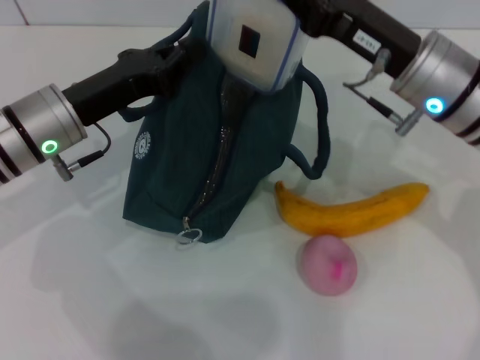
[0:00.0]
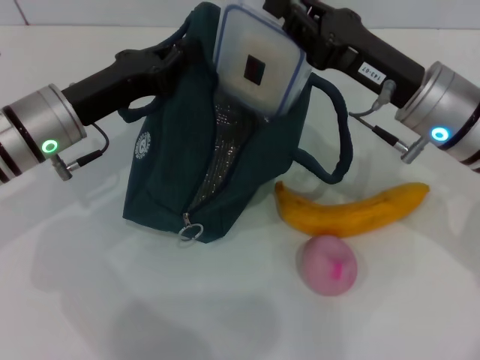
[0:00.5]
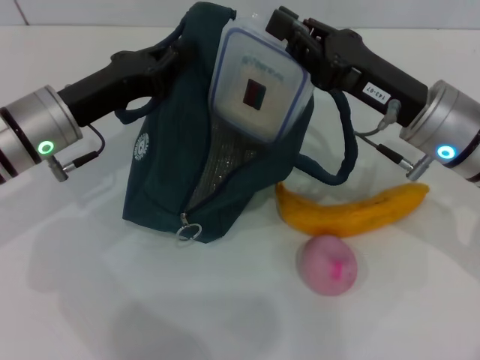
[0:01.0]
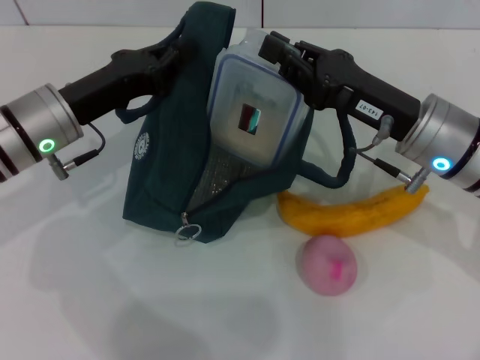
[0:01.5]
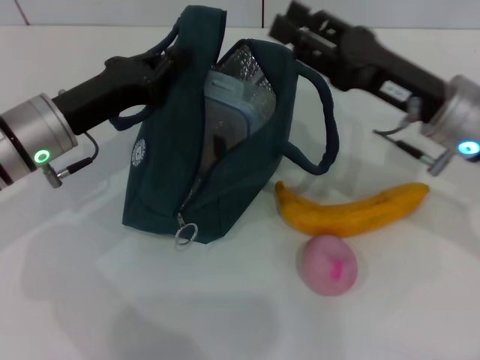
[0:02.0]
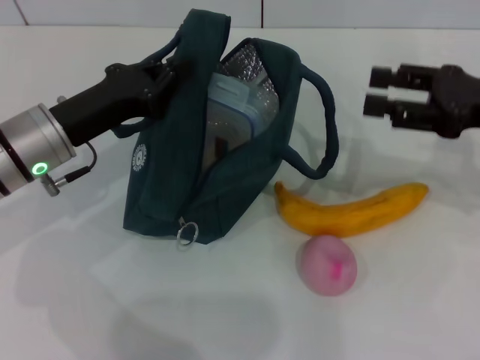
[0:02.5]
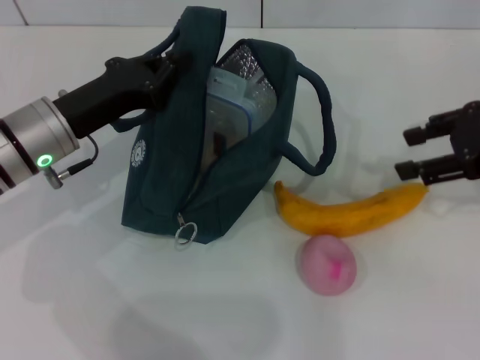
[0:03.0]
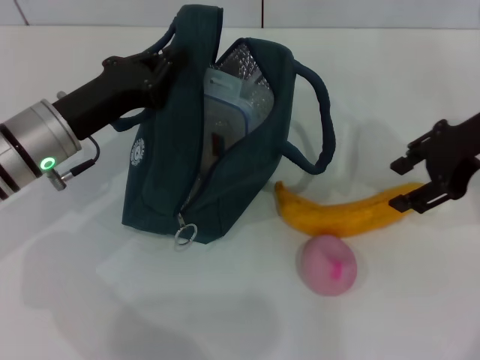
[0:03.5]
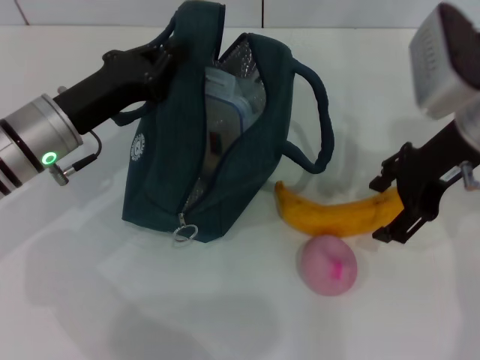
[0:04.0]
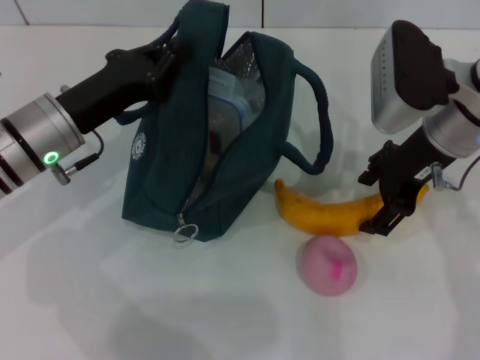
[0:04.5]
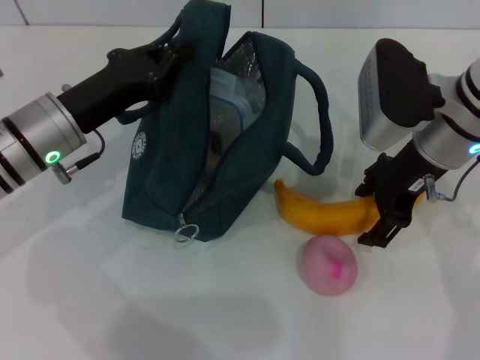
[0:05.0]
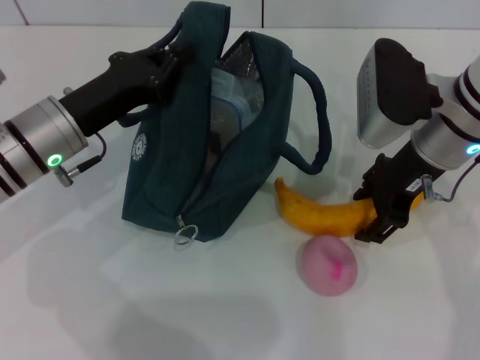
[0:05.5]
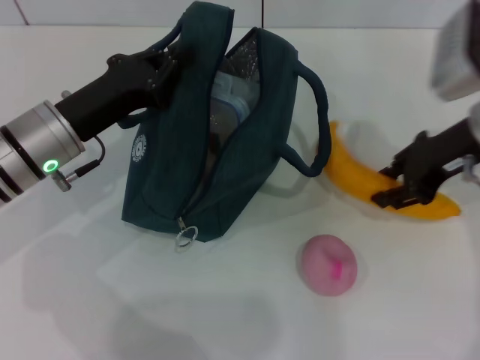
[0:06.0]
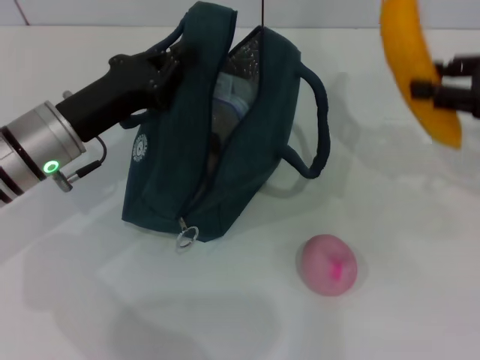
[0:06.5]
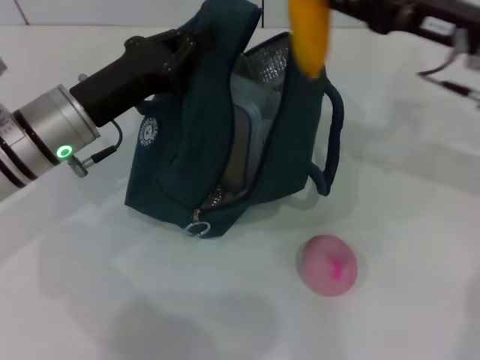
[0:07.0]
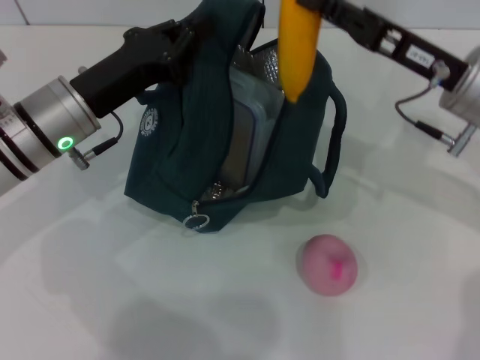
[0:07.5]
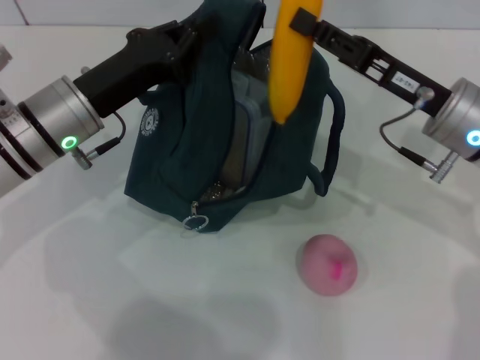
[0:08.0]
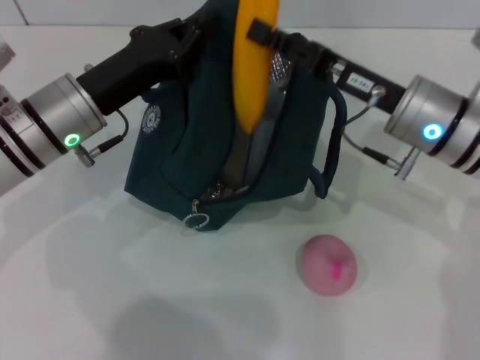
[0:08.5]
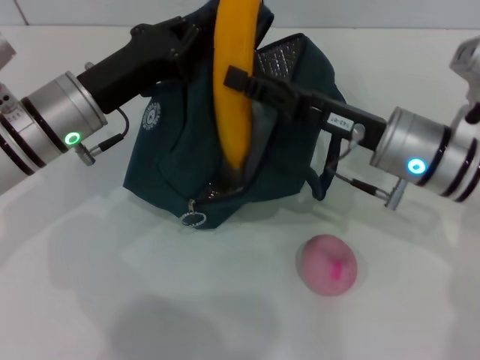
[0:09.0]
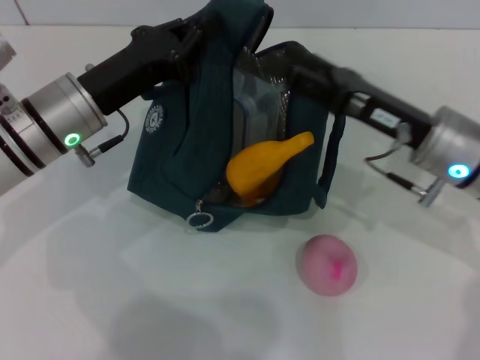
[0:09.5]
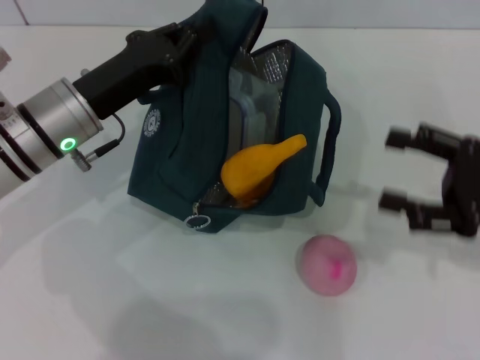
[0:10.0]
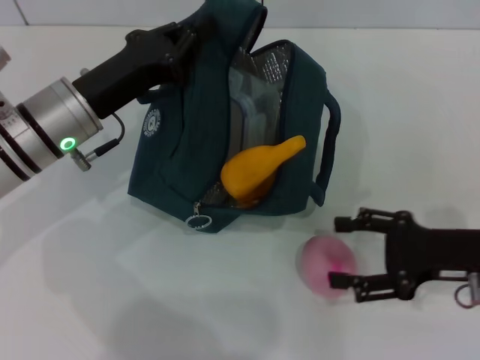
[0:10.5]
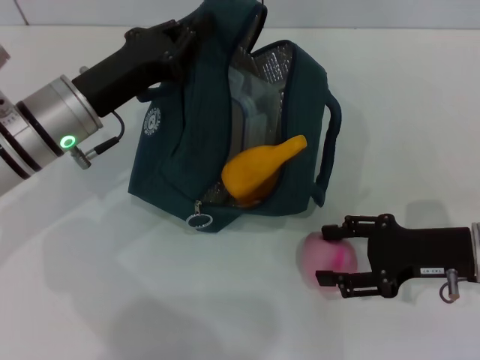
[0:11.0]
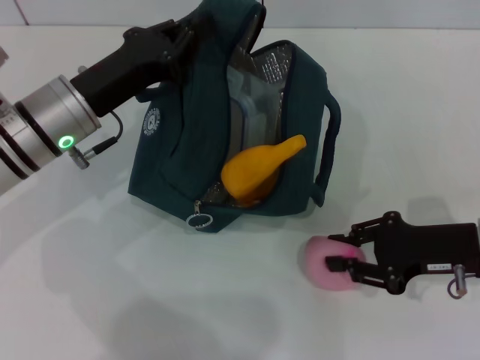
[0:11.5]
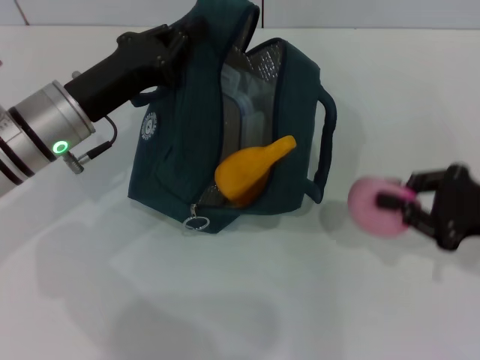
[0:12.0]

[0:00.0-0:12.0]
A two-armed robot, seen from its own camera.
Step, 0:00.0 to 0:02.0: Place the lunch box into the lunch bag with your right hand.
Step, 0:02.5 to 0:05.5: Take the banana with your right hand.
Step, 0:06.0 to 0:09.5: Put the banana into the lunch bag with your right hand.
Step, 0:10.0 to 0:11.0: Grab the peach with your right hand.
0:02.0 to 0:04.0: The right gripper heads upward, covering roughly 5 cm, goes to the right and returns, some 10 cm each way, and opens up.
0:04.0 to 0:06.0: The right gripper closes its fingers.
0:06.0 to 0:08.0: The right gripper reaches approximately 10 cm to the right, then returns.
0:08.0 to 0:10.0: The right gripper heads to the right and backward, covering some 10 cm, and opens its fingers.
0:10.0 to 0:12.0: The right gripper closes.

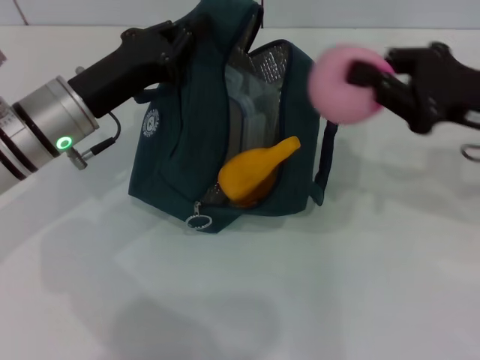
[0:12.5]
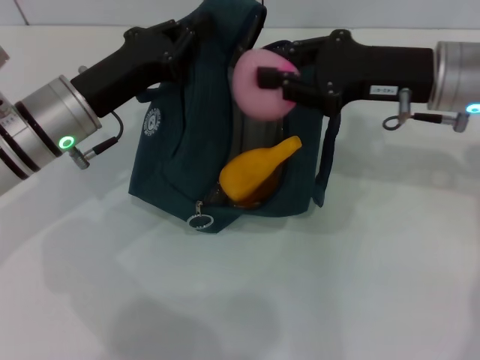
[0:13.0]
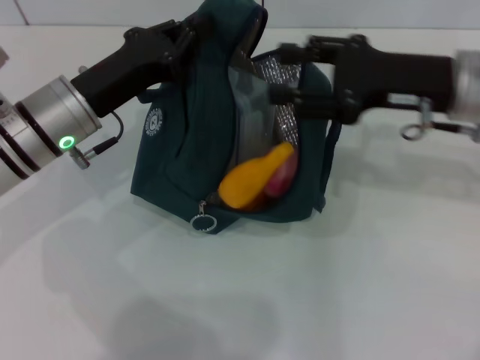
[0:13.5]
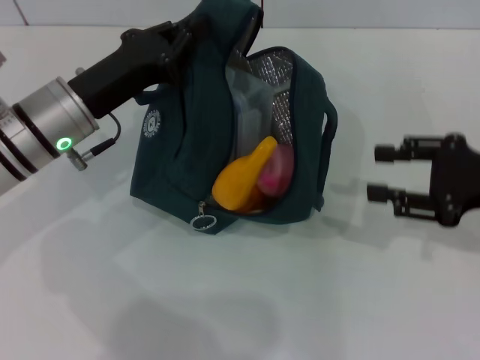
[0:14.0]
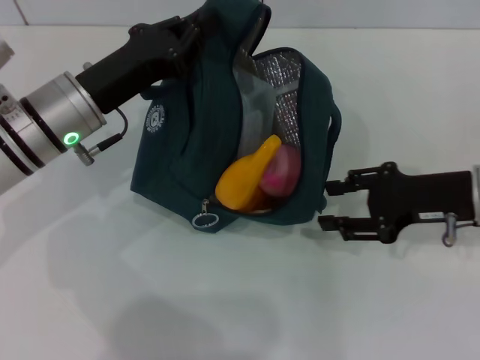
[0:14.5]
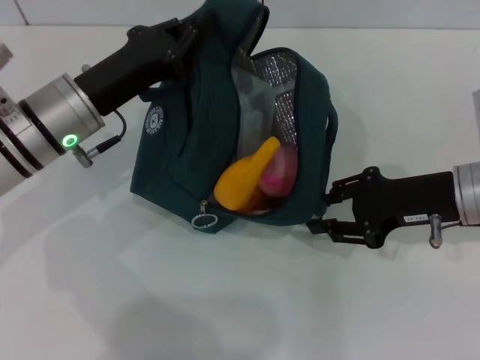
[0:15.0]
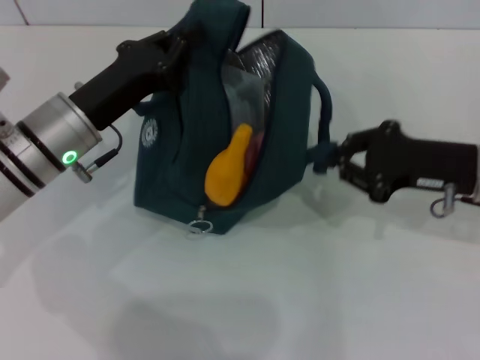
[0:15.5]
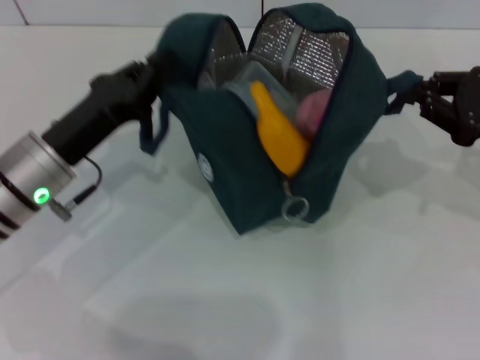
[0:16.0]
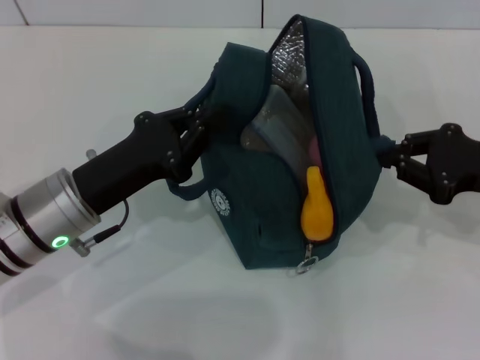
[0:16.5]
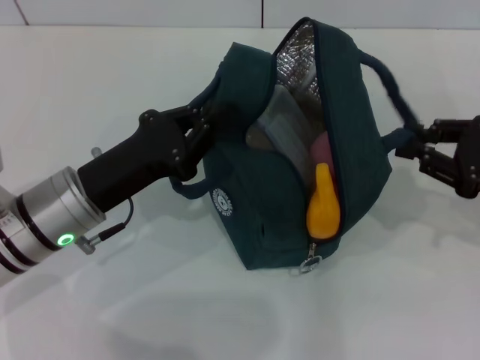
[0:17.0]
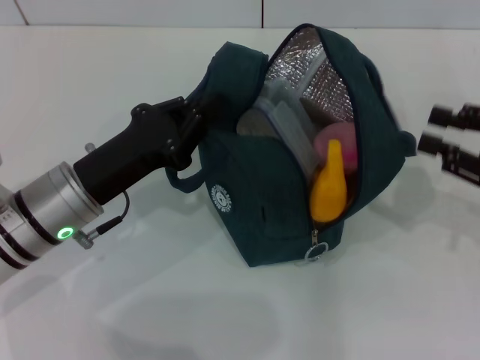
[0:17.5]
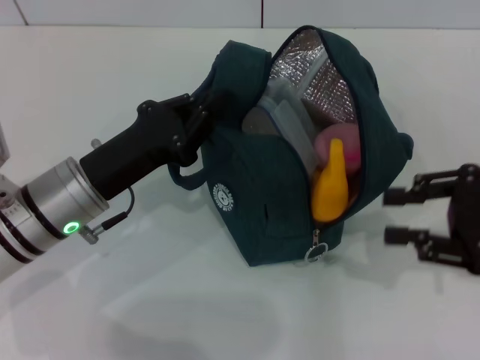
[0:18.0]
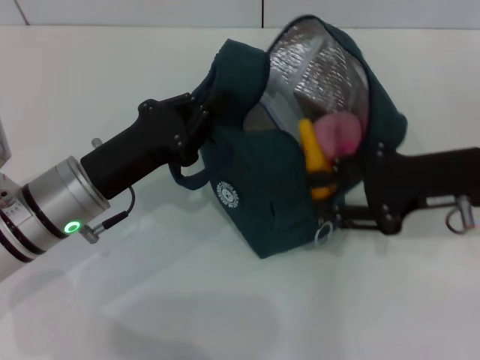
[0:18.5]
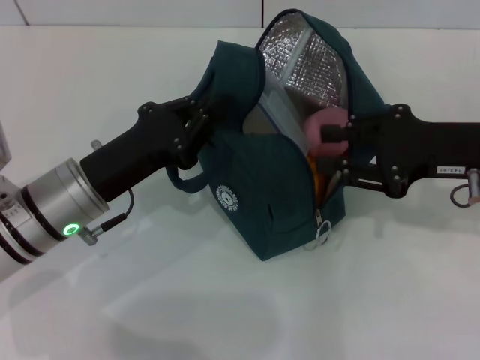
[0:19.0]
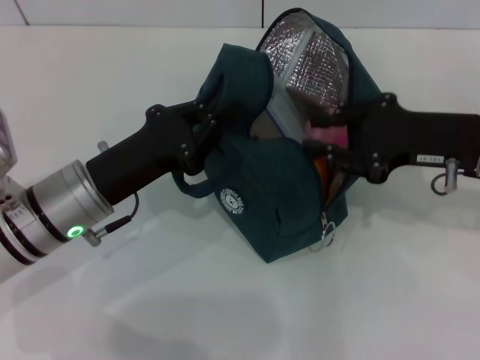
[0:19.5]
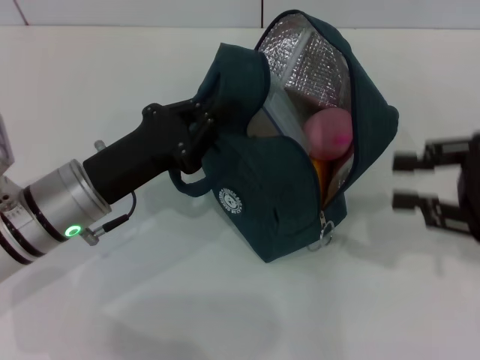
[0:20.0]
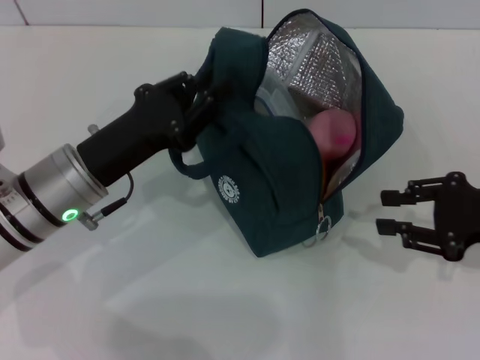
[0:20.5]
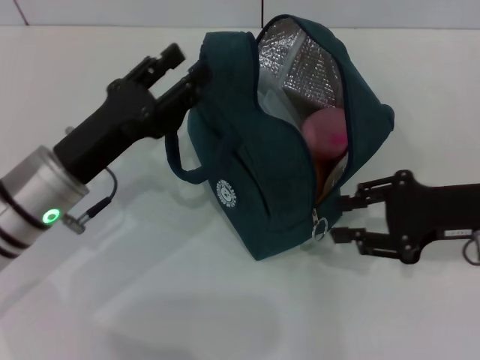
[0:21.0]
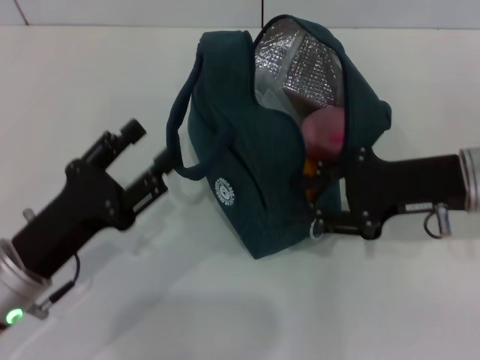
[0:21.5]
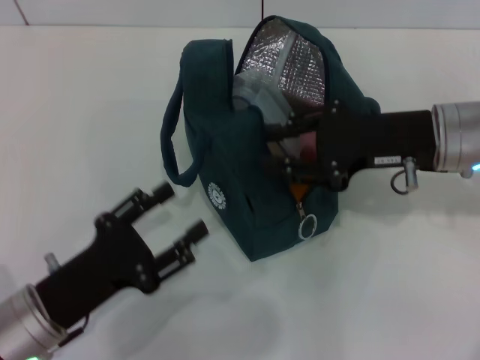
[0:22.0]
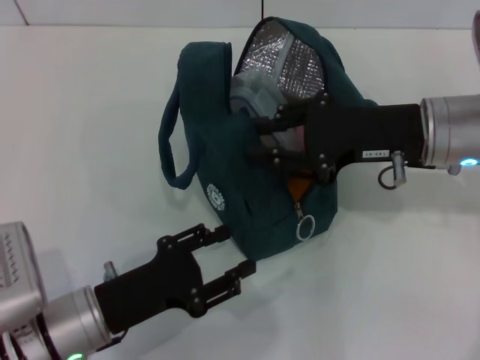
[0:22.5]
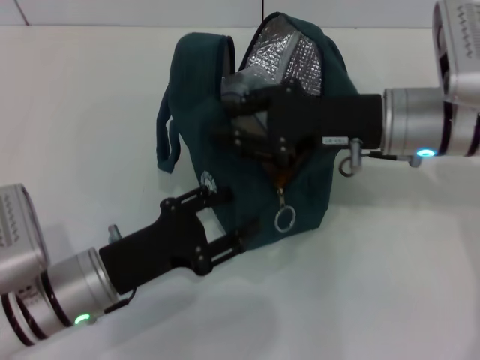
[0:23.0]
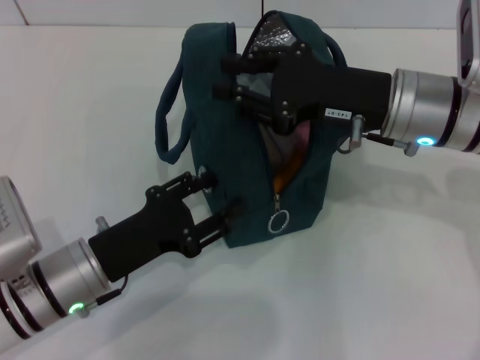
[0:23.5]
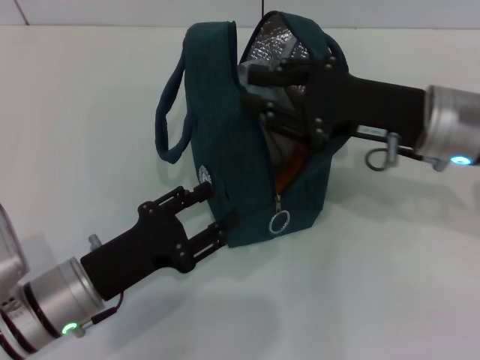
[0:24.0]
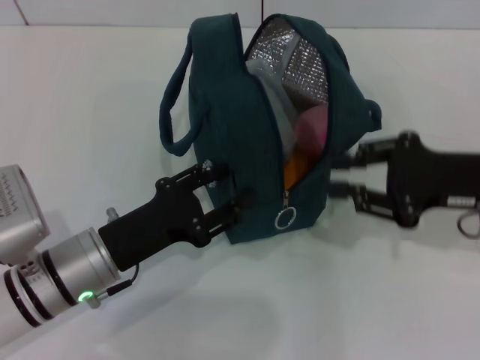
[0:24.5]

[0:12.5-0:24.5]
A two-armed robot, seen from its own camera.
Step, 0:14.0 to 0:17.0: Hold the lunch bag with your right hand.
0:12.5 to 0:14.5: The right gripper goes left and right, about 10 cm each way, reversing 2 times, and opens.
0:14.5 to 0:16.5: The right gripper goes approximately 5 cm to the right, and closes up. The left gripper shifts roughly 10 cm backward.
0:16.5 to 0:18.5: The right gripper shifts some 5 cm to the left, and opens its fingers.
0:18.5 to 0:20.5: The right gripper moves to the right, approximately 5 cm.
0:20.5 to 0:22.5: The right gripper shifts about 15 cm to the left and forward, while the left gripper travels backward and downward by roughly 10 cm, and opens its fingers.
0:22.5 to 0:24.5: The right gripper moves to the right, about 5 cm.

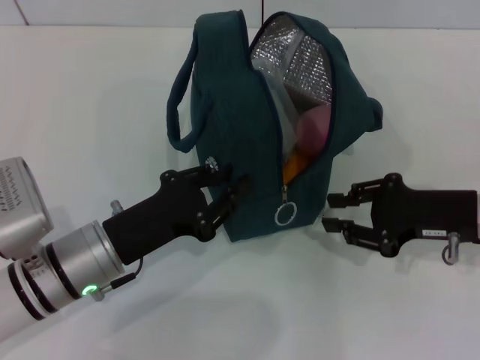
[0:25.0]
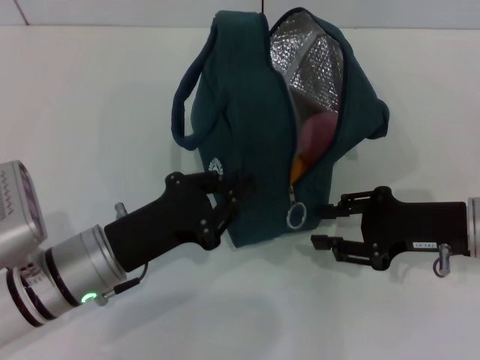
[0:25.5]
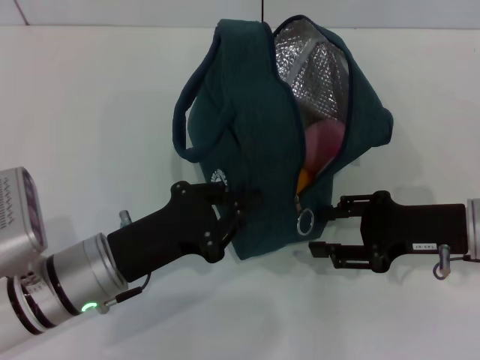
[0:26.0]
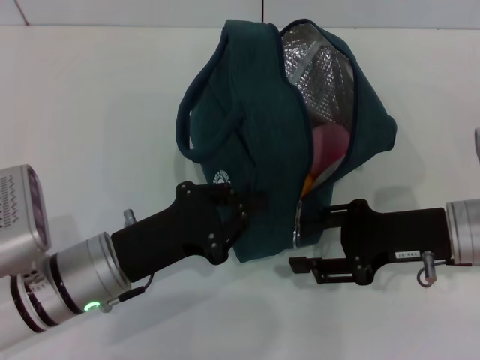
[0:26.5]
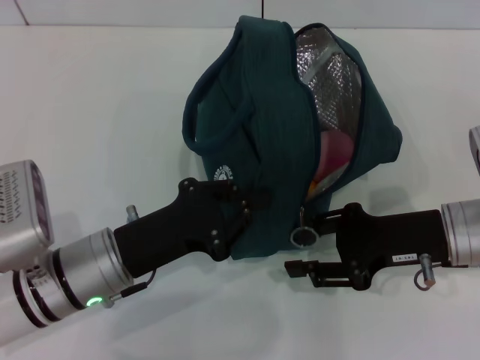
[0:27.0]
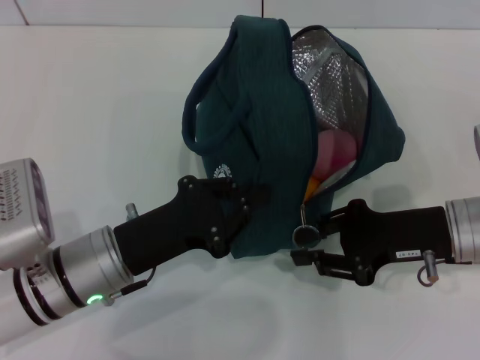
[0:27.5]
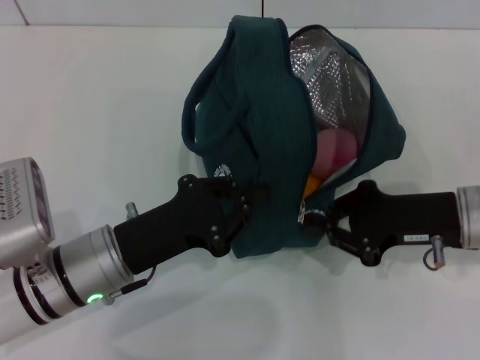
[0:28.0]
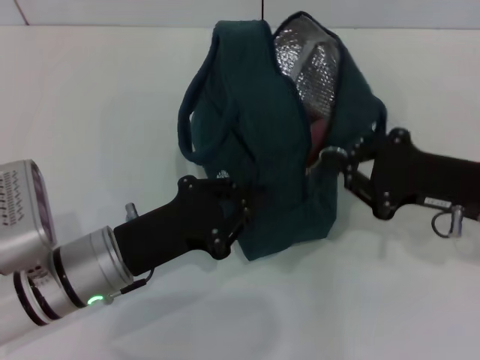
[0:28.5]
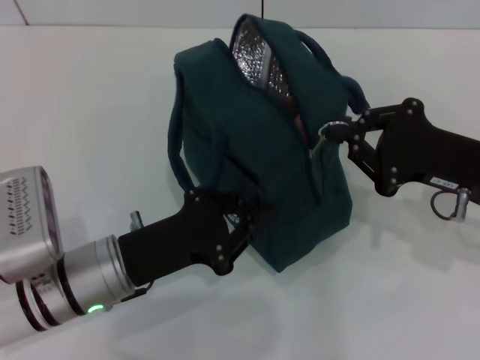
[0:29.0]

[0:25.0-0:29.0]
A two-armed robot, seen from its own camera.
0:25.0 to 0:27.0: The left gripper closes up.
0:27.0 to 0:29.0: The right gripper closes.
